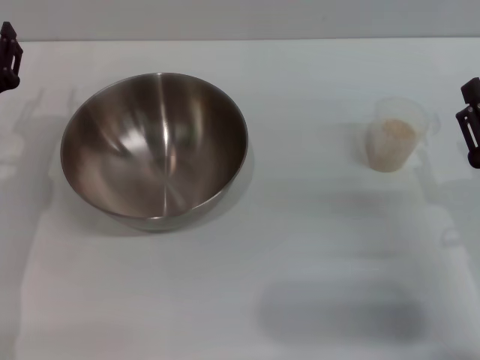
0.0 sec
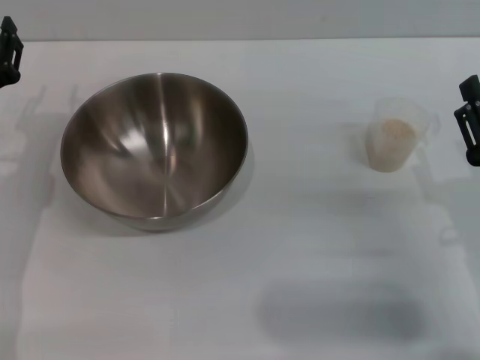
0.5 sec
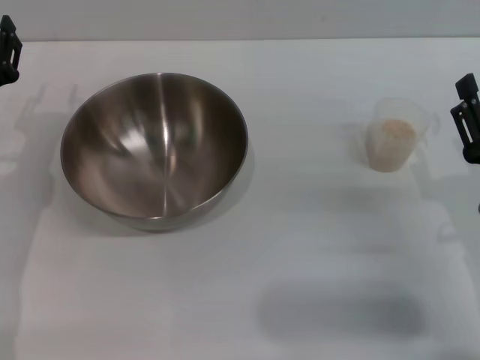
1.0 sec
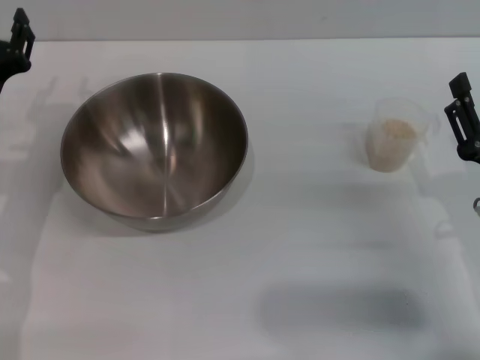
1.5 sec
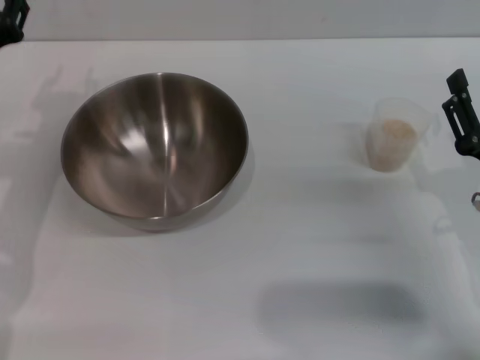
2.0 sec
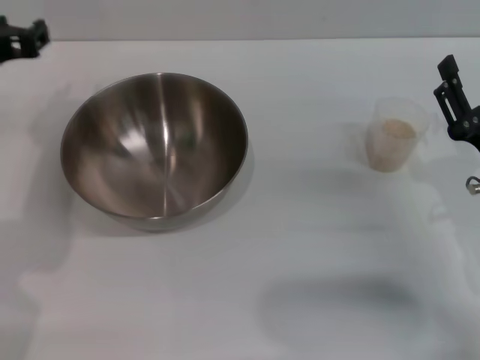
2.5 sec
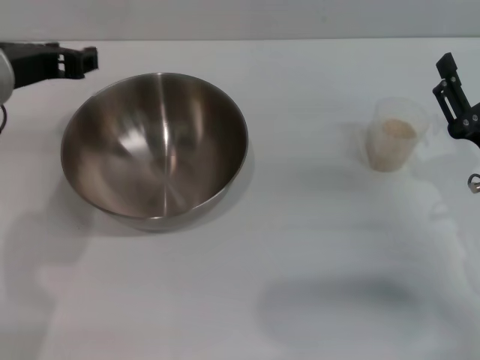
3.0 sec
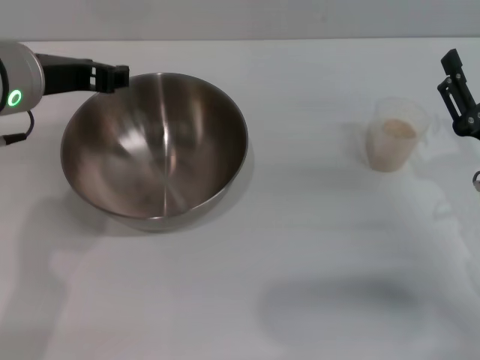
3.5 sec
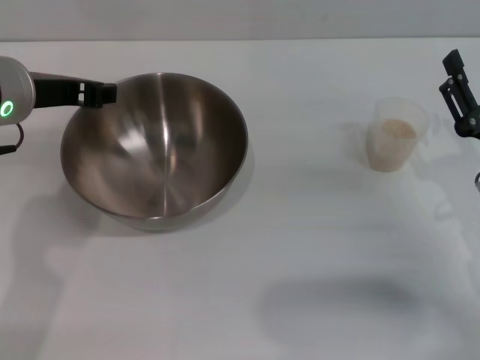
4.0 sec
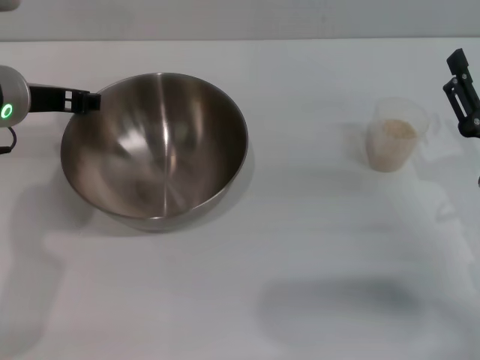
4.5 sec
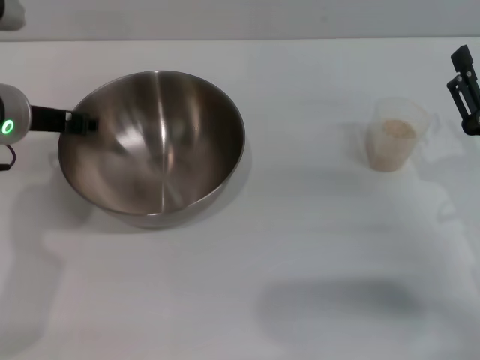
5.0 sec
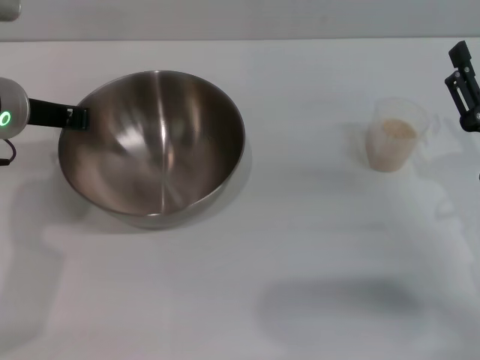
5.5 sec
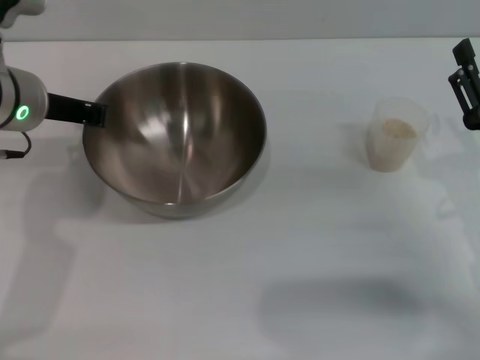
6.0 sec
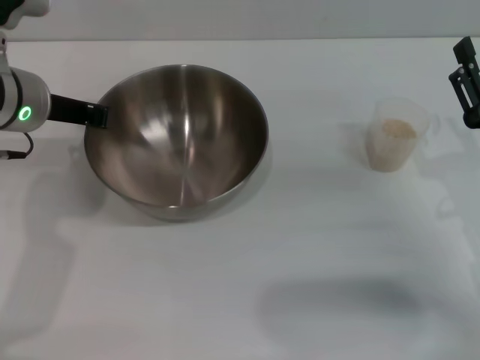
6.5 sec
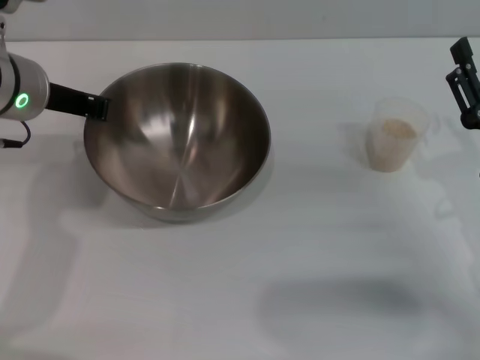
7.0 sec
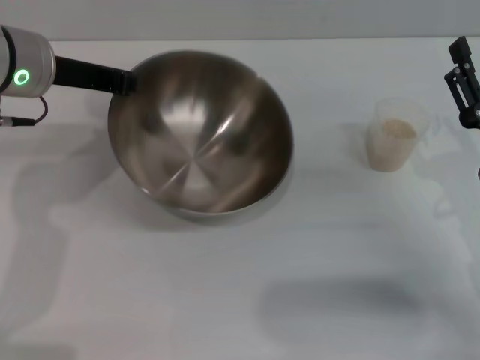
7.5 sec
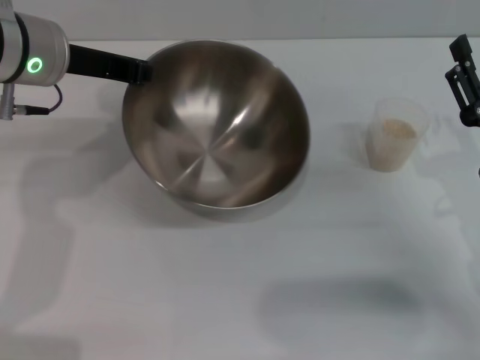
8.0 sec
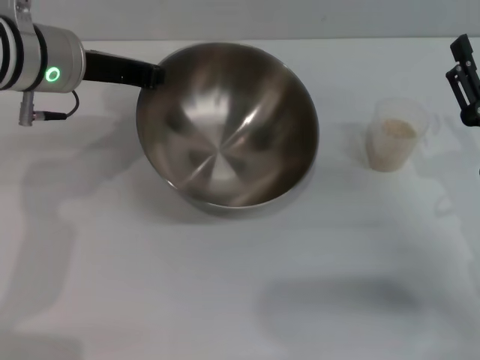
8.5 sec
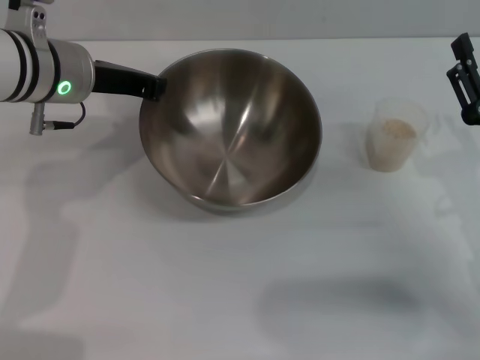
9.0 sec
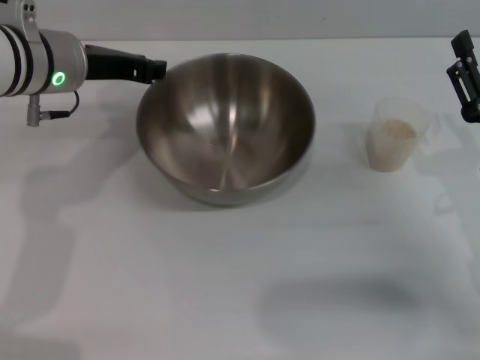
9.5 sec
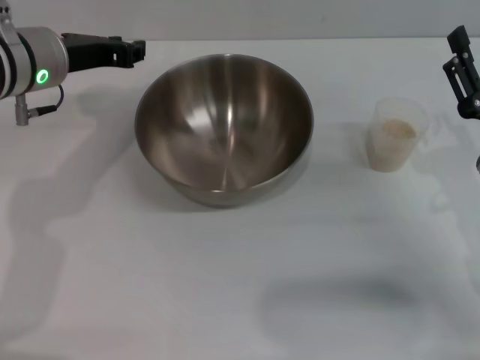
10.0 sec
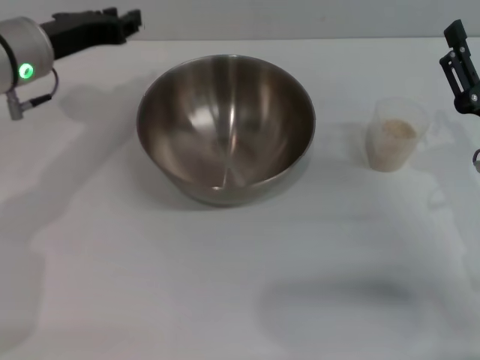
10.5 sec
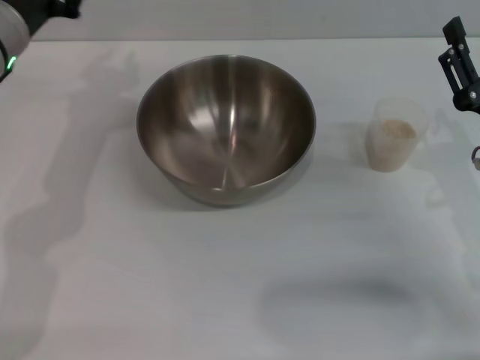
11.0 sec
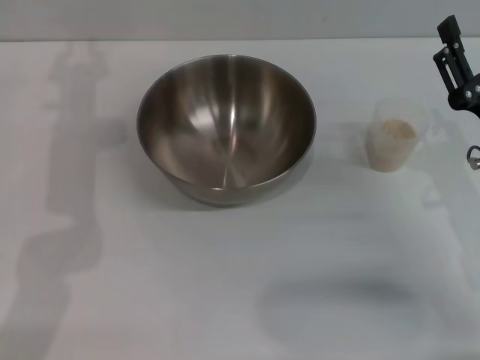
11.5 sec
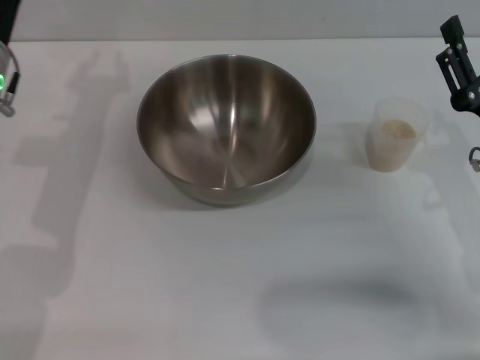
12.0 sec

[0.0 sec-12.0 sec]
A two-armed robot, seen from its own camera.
Task of the whole recording: Place the bowl in the middle of the table with one hand and pour the rice from the grain cup into it with the other hand.
Step, 0.0 sec to 8.0 sec: Pick up the bowl with the left gripper.
0.0 sec to 2.0 sec: The left gripper travels upward by approximately 5 cm.
2.0 sec to 4.0 sec: The left gripper moves upward and to the right, approximately 10 cm.
4.0 sec to 6.0 sec: The left gripper closes.
8.0 sec to 10.0 sec: The left gripper opens up.

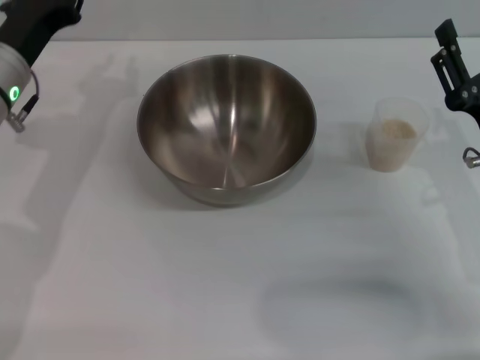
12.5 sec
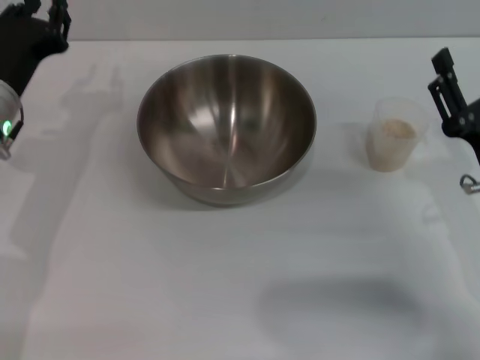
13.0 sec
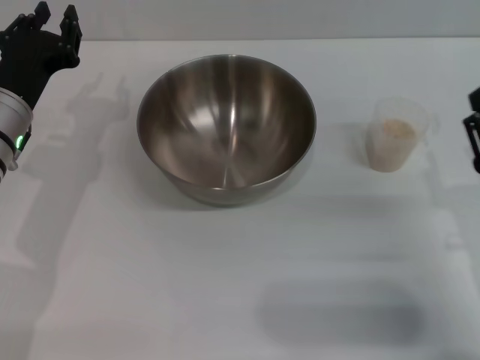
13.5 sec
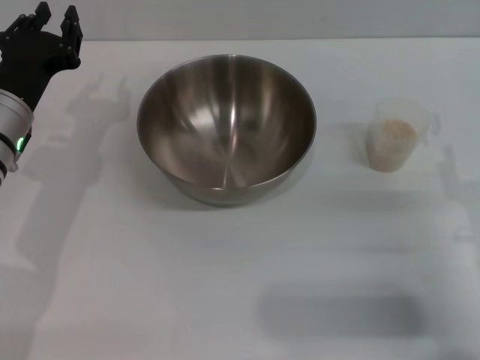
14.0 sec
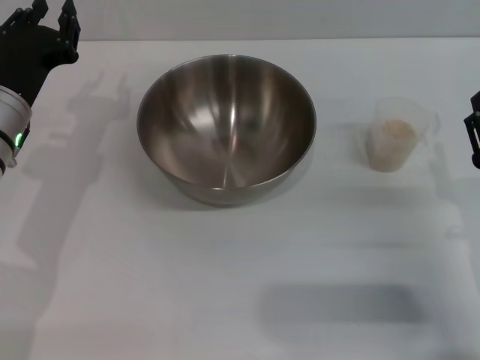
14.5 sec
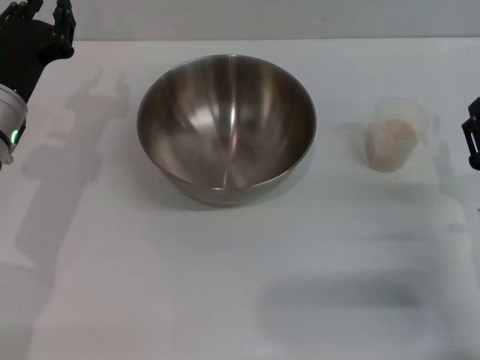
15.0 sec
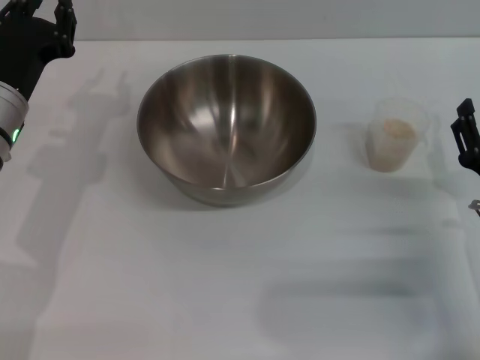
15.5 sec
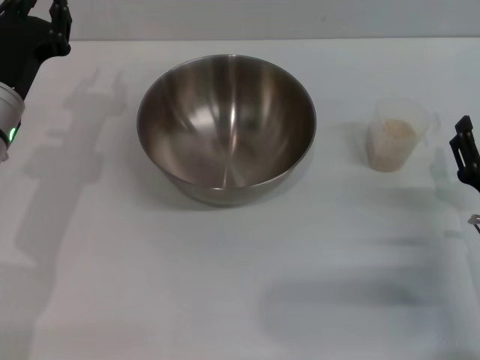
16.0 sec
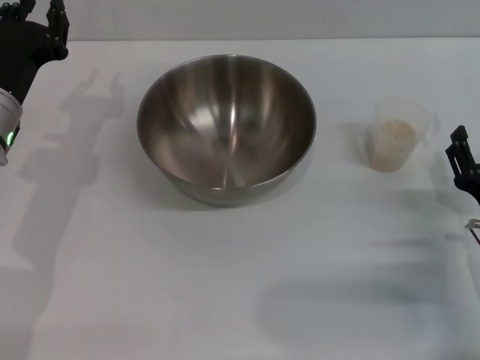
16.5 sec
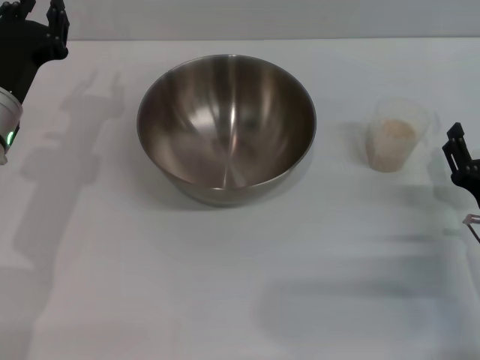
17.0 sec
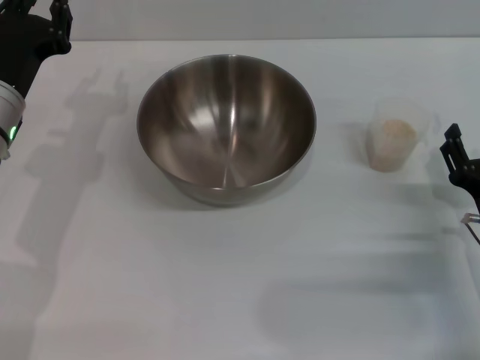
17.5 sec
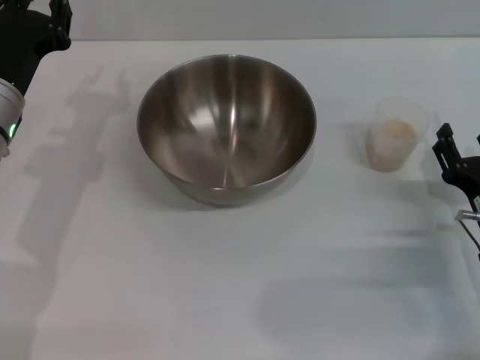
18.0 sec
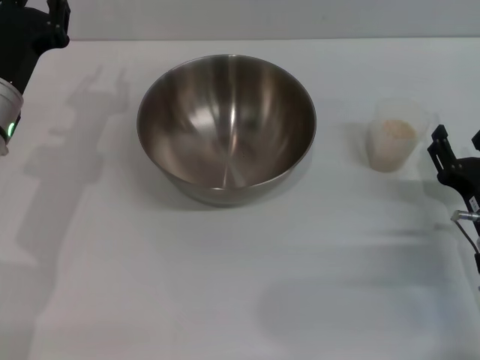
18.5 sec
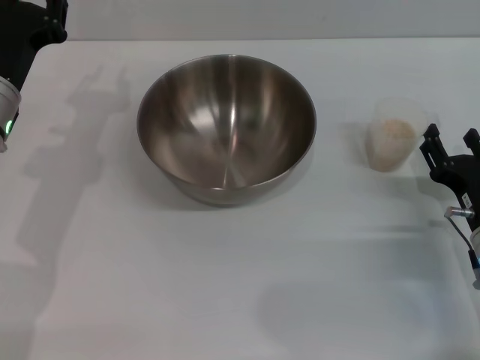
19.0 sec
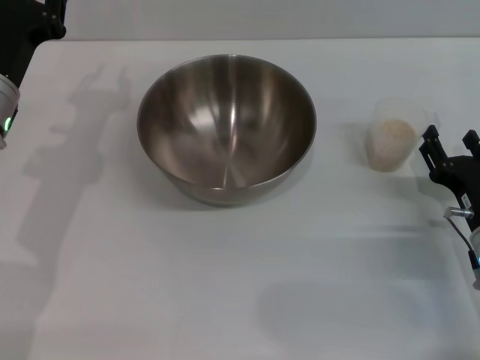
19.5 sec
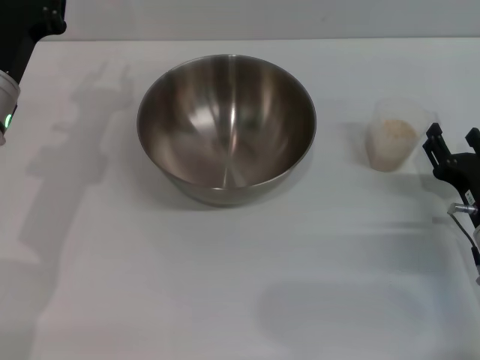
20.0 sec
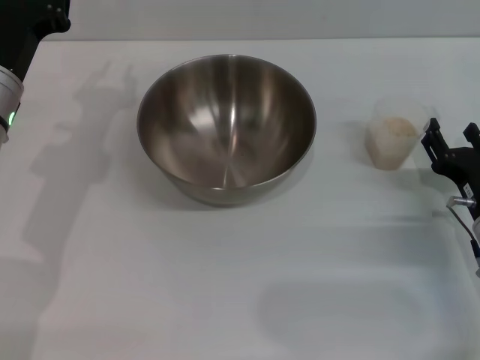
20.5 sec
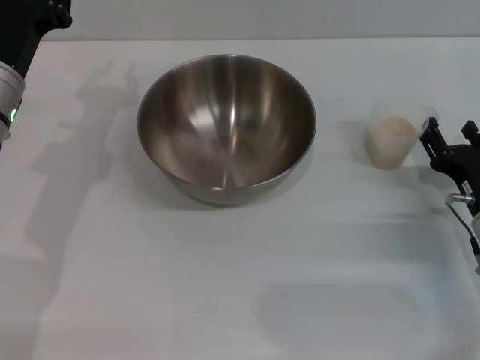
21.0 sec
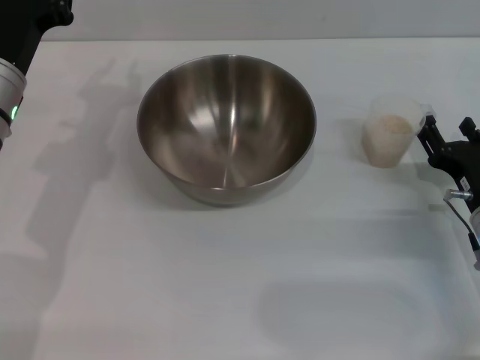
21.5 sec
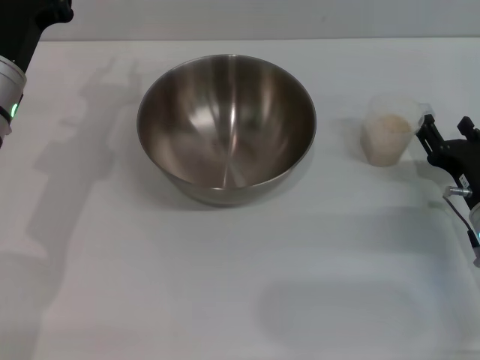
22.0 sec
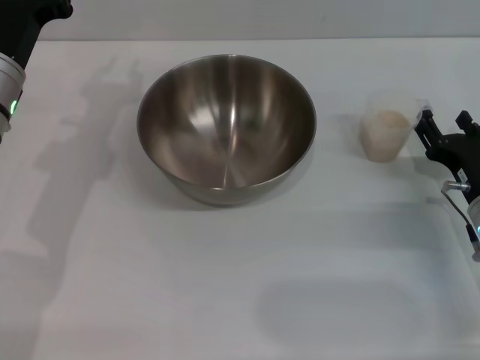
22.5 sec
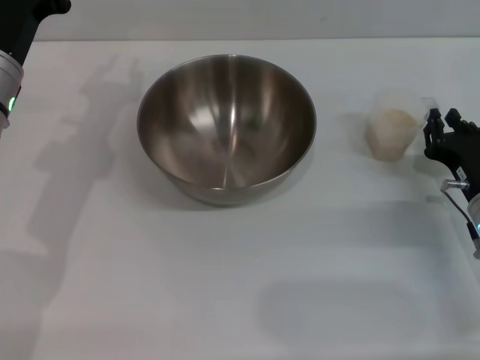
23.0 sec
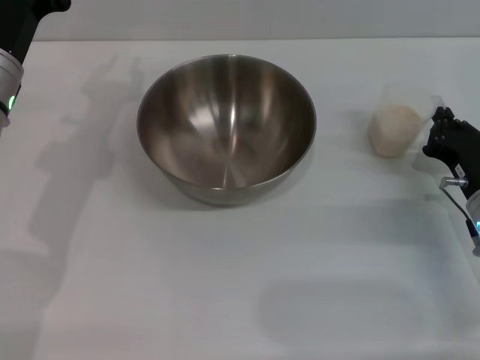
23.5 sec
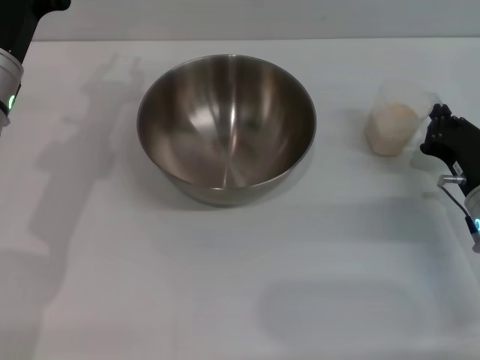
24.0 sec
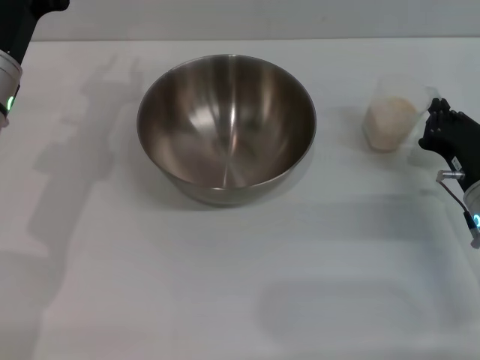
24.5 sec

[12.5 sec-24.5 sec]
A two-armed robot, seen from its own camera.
Task of the whole recording: Place the bowl in the middle of the table with one hand and pour the rice from the grain cup into it with the other hand.
12.5 sec to 14.5 sec: The right gripper moves roughly 5 cm.
14.5 sec to 18.5 sec: There are only small adjustments of the grippers.
18.5 sec to 22.5 sec: There are only small adjustments of the grippers.
22.5 sec to 24.5 sec: The right gripper closes its fingers.

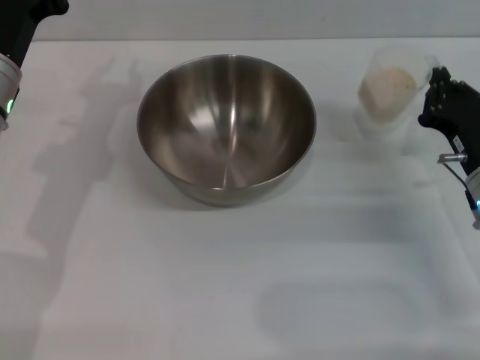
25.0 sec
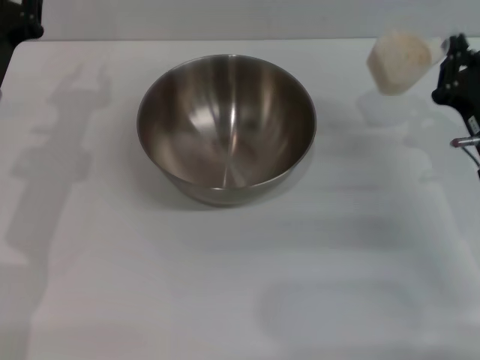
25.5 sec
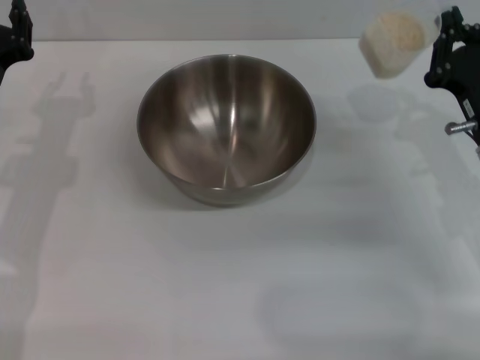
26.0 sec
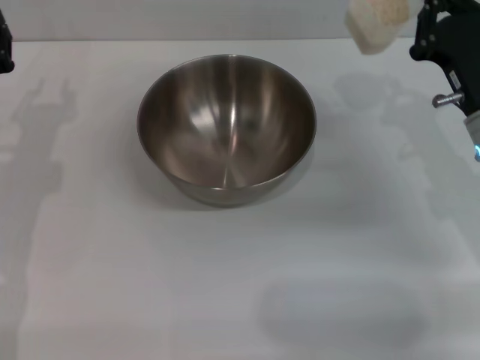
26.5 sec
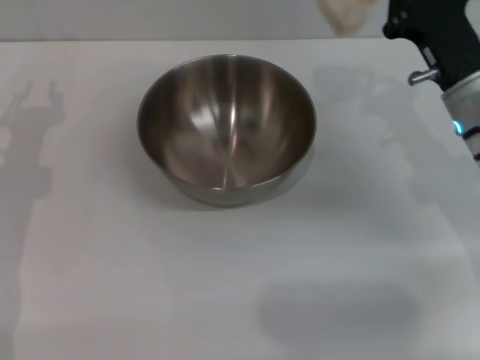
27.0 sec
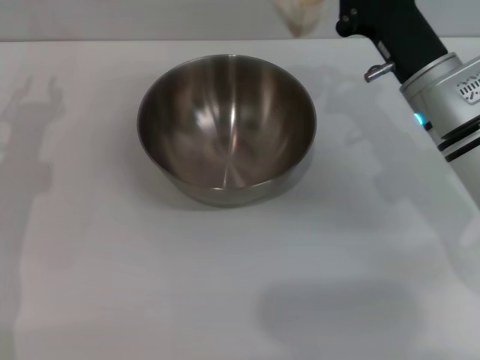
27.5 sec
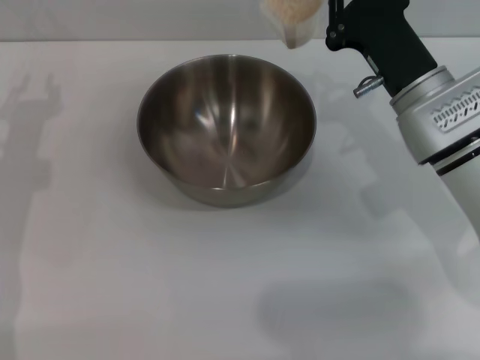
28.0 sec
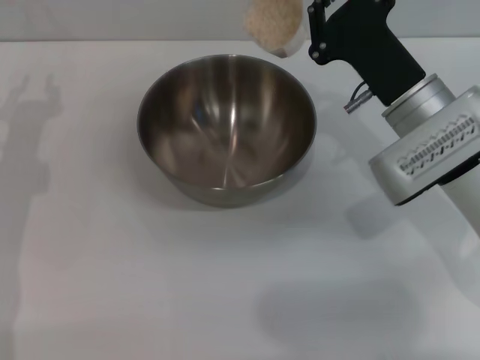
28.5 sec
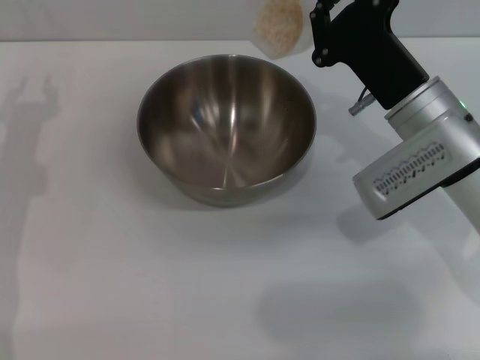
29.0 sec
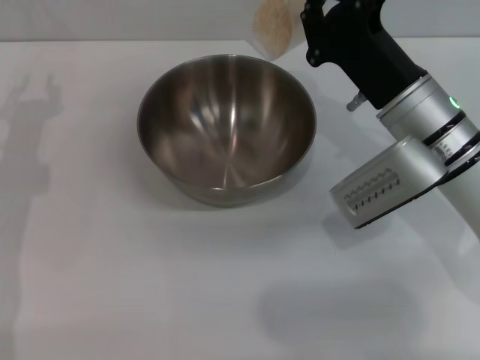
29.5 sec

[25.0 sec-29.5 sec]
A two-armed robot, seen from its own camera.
Task of the whole recording: Place the bowl in the middle of the table with one hand and pour the rice from the grain cup into it with the other hand.
25.0 sec to 27.0 sec: The right gripper shifts approximately 10 cm upward and forward, while the left gripper moves to the left, about 5 cm.
27.0 sec to 29.5 sec: The right gripper goes about 5 cm to the left.
